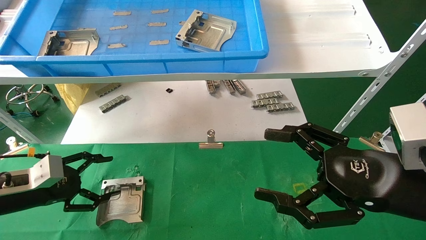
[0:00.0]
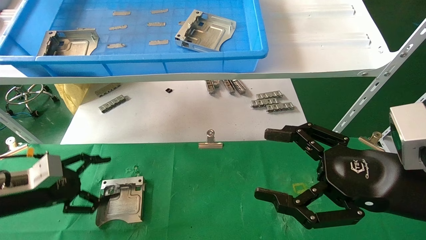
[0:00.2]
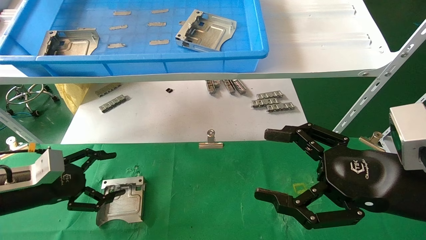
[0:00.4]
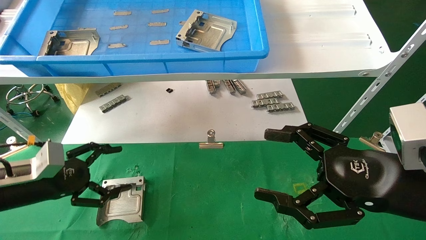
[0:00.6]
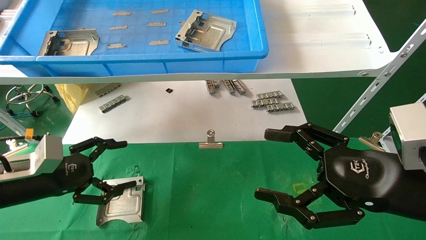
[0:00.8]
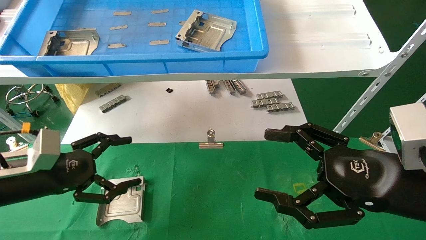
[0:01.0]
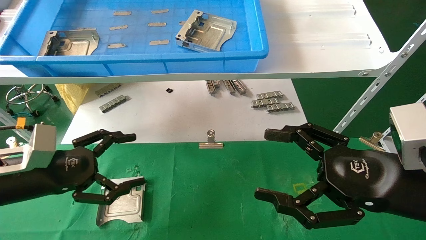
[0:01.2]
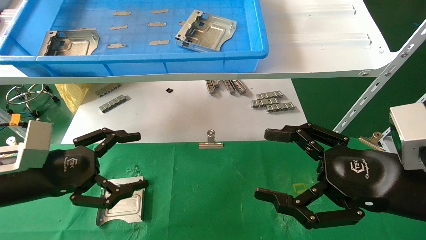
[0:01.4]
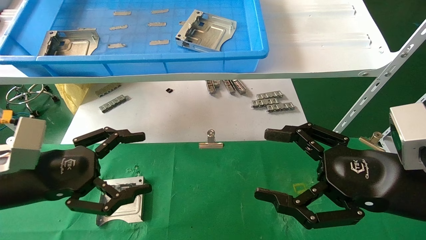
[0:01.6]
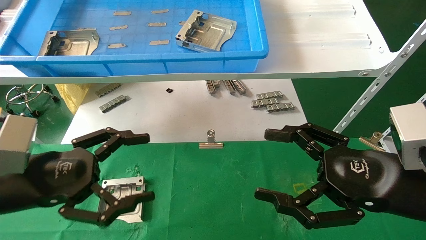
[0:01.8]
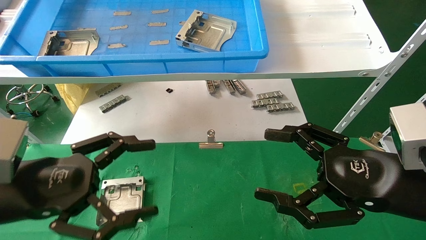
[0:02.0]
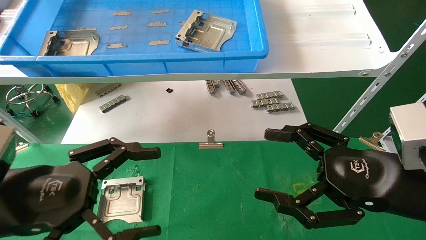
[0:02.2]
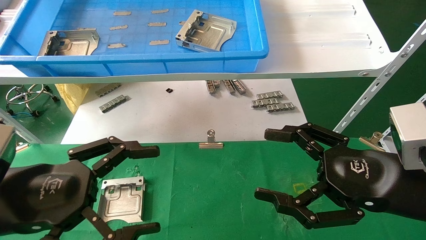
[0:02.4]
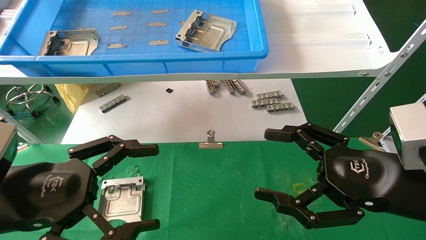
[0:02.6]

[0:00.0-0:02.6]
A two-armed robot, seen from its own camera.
Task of the whole recording: use the mechanical arm to pick up the parts and place them on the table.
0:00.0 to 0:01.2: The left gripper travels to the right and upward by approximately 10 cm.
0:01.2 to 0:02.6: The left gripper heads backward and to the right, covering roughly 10 cm.
